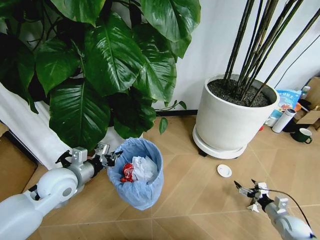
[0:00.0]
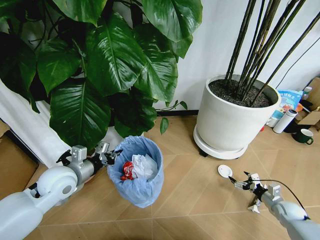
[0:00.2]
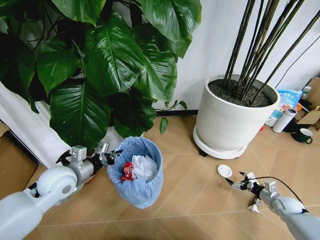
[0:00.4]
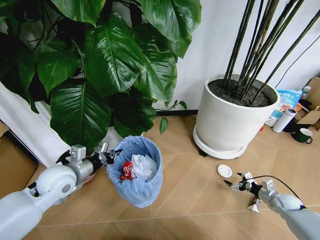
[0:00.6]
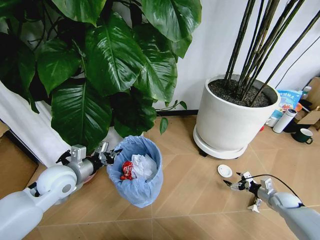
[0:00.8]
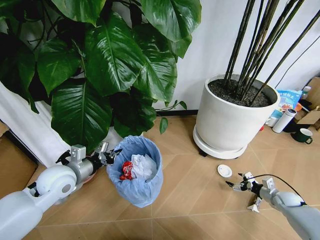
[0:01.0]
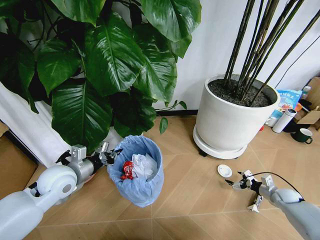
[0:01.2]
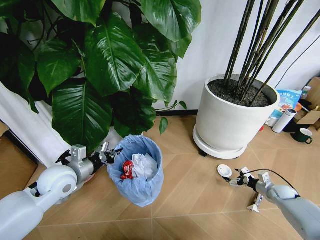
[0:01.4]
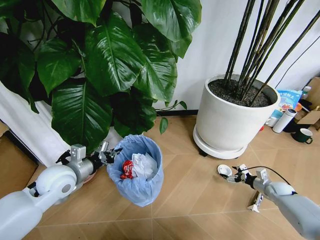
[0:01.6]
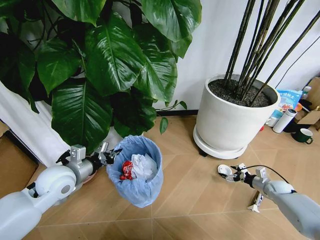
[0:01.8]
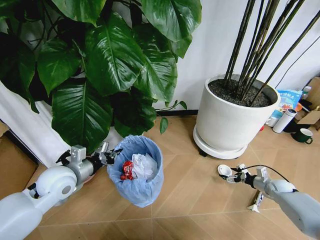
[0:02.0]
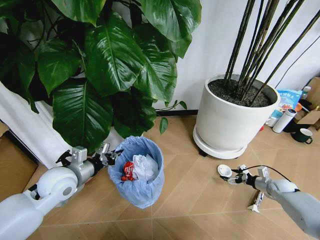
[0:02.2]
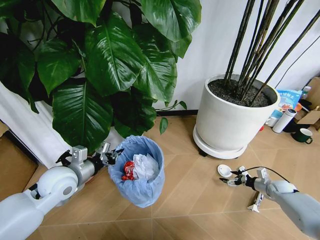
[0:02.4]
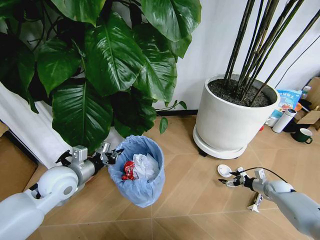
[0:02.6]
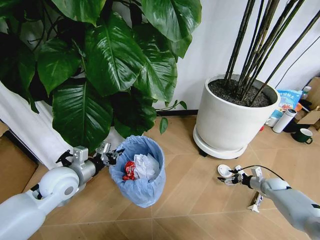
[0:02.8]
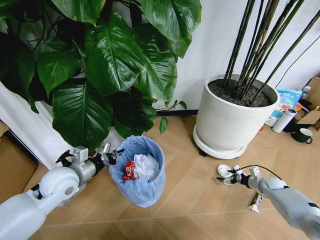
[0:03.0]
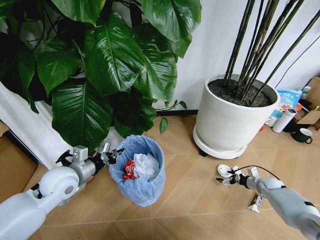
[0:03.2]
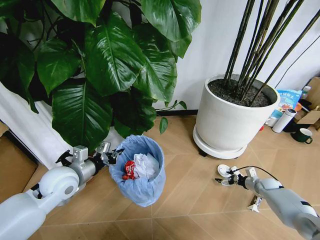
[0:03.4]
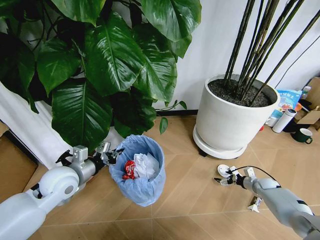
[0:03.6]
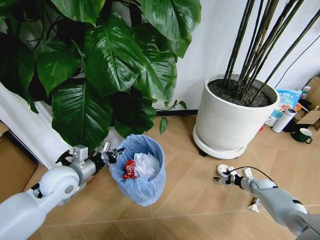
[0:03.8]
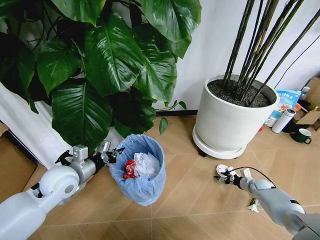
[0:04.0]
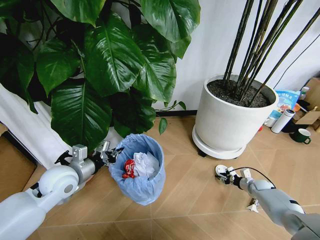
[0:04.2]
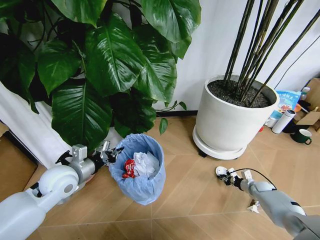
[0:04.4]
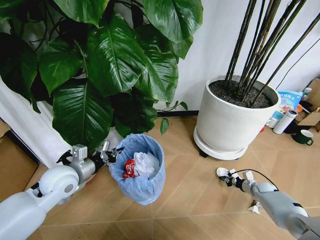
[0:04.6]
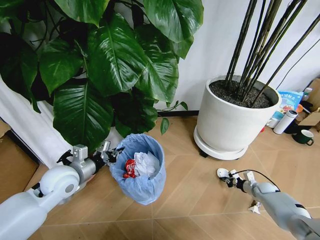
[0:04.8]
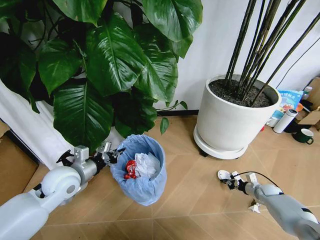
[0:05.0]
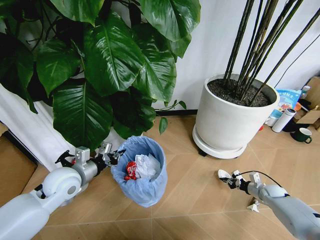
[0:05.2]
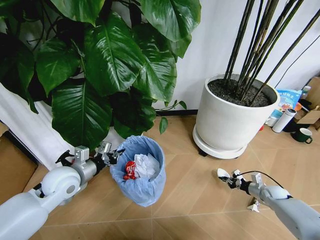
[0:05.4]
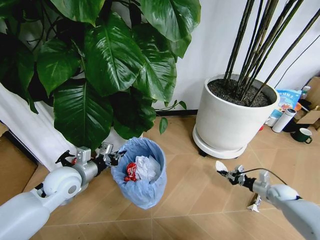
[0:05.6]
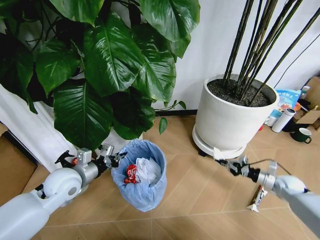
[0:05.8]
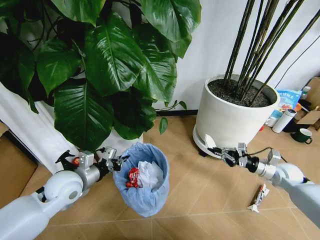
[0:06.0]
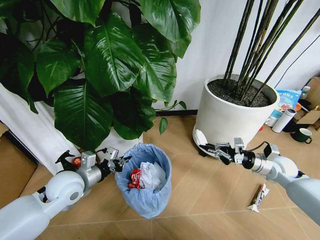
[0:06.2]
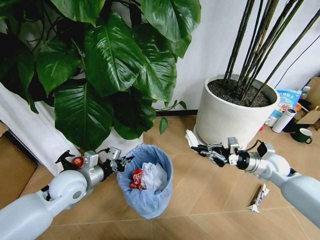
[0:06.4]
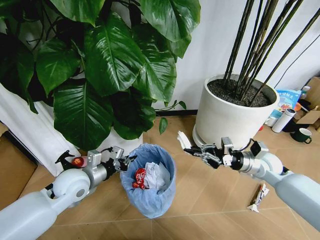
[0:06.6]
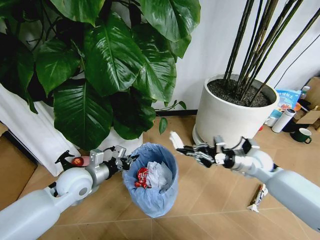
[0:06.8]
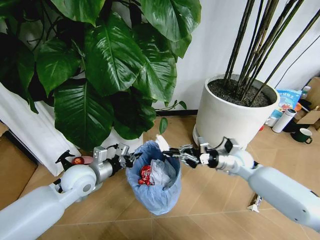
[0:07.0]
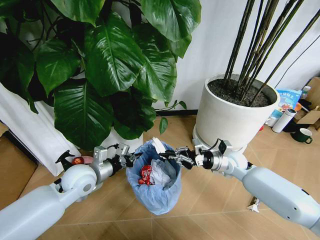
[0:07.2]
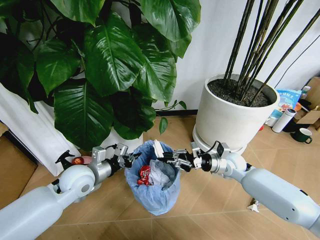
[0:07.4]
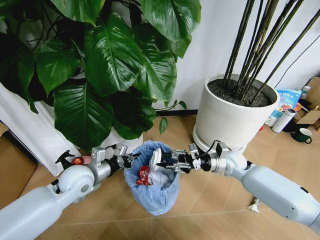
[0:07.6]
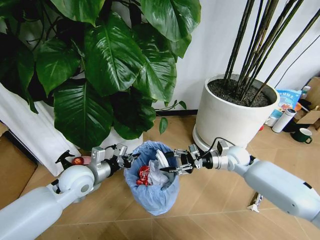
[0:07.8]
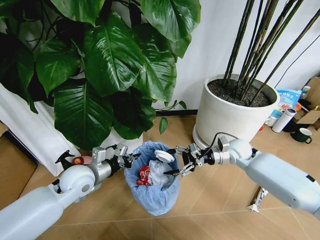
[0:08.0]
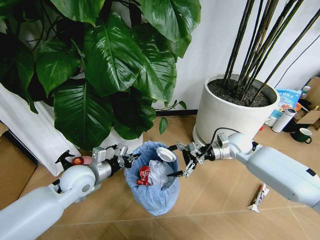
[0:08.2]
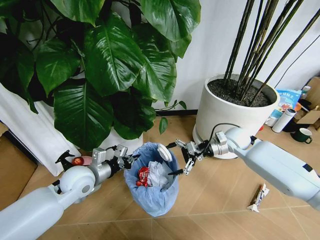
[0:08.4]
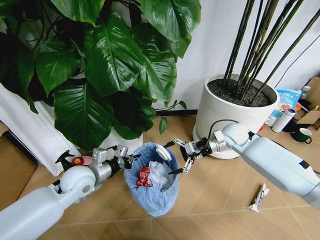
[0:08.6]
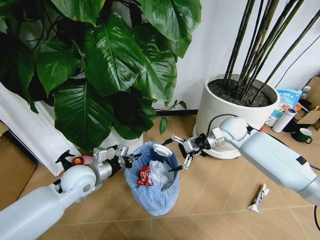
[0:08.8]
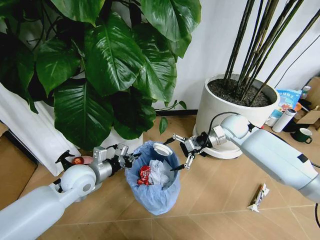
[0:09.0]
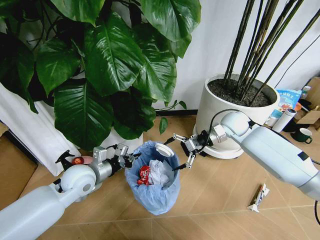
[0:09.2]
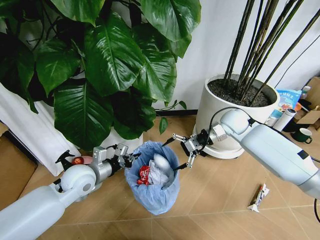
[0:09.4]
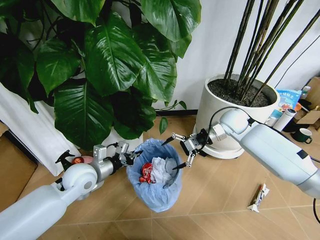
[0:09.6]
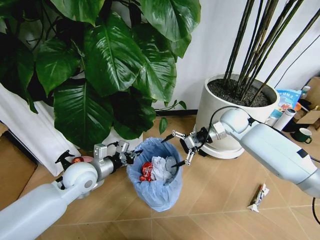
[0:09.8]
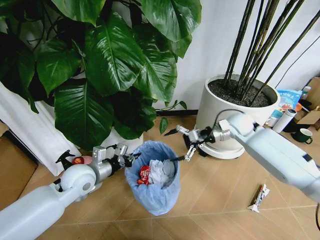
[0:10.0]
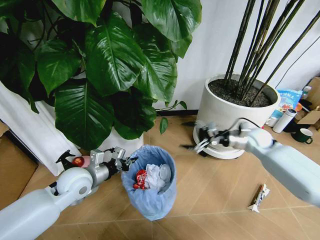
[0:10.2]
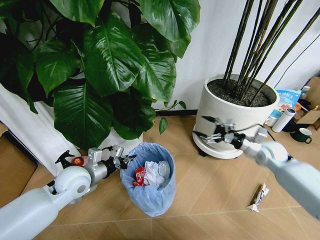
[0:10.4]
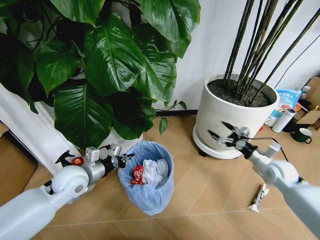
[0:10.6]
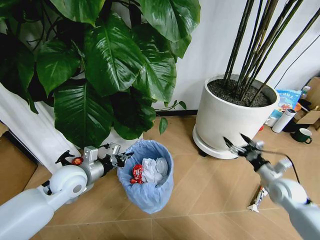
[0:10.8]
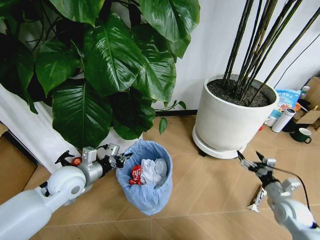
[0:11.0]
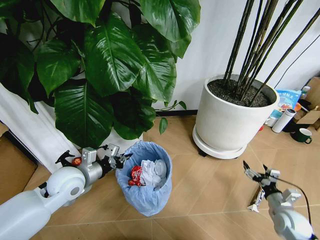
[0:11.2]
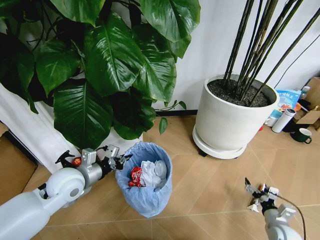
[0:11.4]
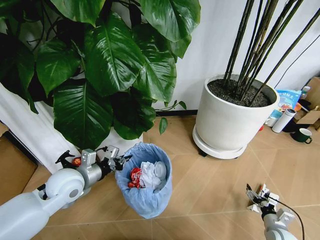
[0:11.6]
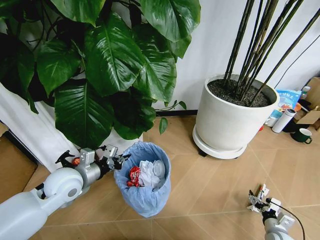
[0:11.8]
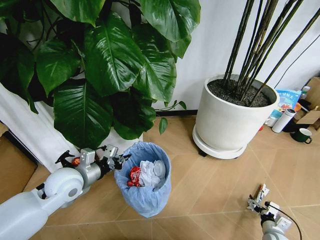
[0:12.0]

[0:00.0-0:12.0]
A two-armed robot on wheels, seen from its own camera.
Task of the whole recording: Pick up the trash bin and place the garbage on the floor into it.
0:00.0 to 0:01.6: The right gripper moves forward, some 15 cm.
0:01.6 to 0:03.0: The grippers move only a little.
0:03.0 to 0:04.4: The right gripper ends up about 5 cm from where it was, and closes up.
0:04.4 to 0:06.0: The right gripper travels upward by some 20 cm.
0:06.0 to 0:07.6: The right gripper shifts roughly 20 cm to the left.
0:07.6 to 0:09.0: The right gripper shifts roughly 15 cm upward and forward, and opens its fingers.
0:09.0 to 0:10.4: The right gripper travels to the right, backward and downward by roughly 20 cm.
0:10.4 to 0:12.0: The right gripper is displaced downward and backward by approximately 35 cm.

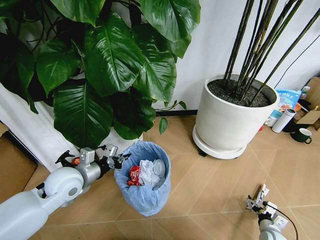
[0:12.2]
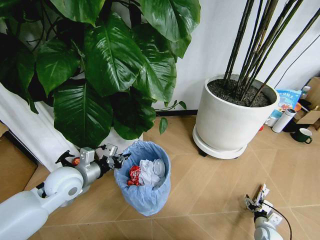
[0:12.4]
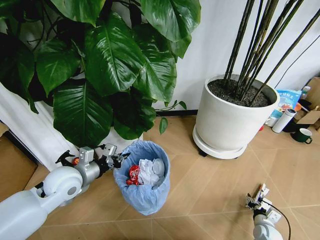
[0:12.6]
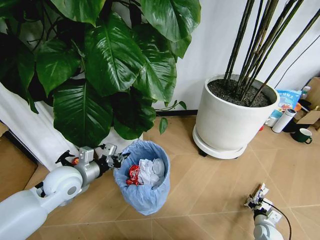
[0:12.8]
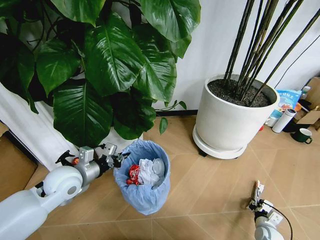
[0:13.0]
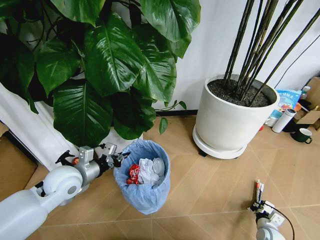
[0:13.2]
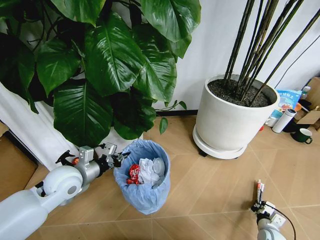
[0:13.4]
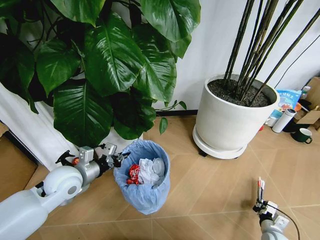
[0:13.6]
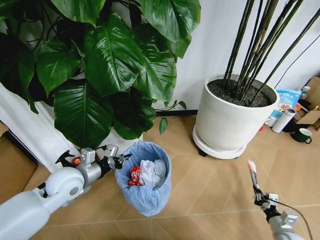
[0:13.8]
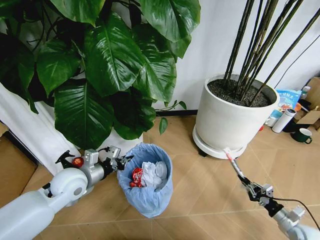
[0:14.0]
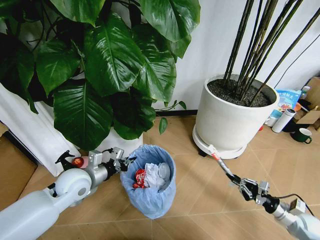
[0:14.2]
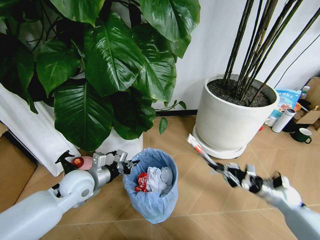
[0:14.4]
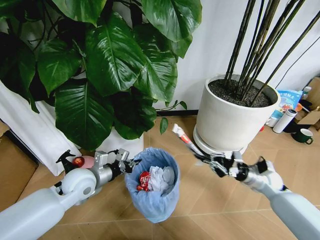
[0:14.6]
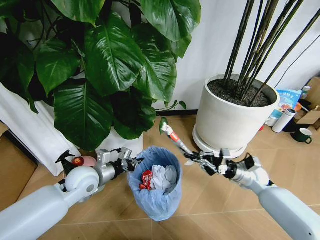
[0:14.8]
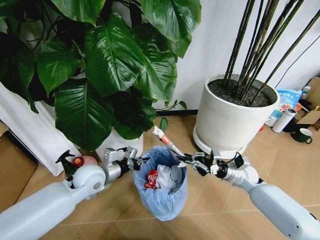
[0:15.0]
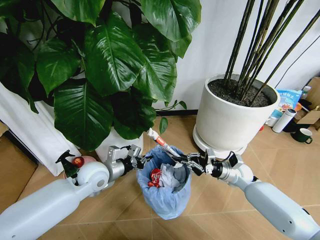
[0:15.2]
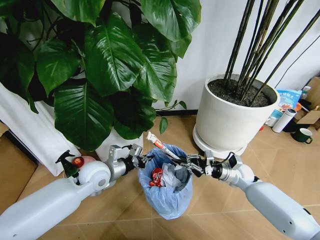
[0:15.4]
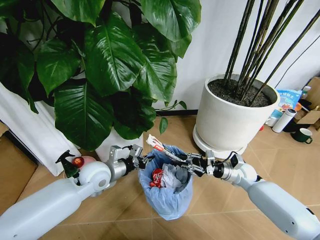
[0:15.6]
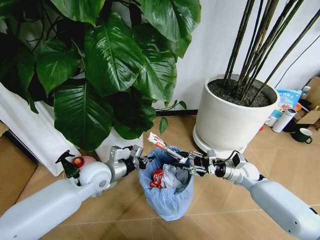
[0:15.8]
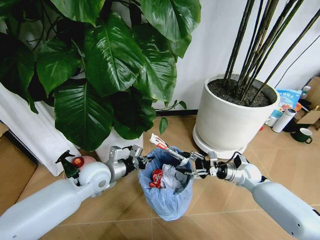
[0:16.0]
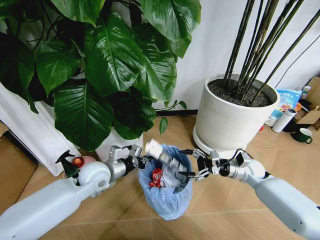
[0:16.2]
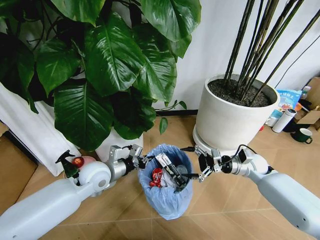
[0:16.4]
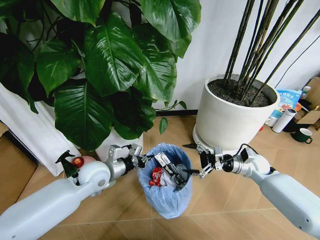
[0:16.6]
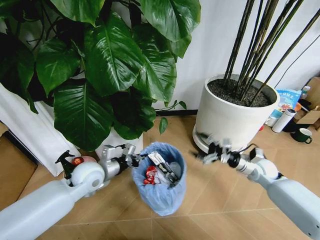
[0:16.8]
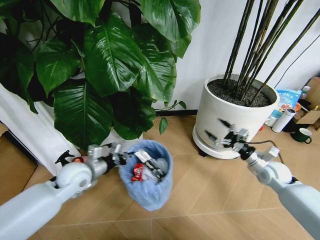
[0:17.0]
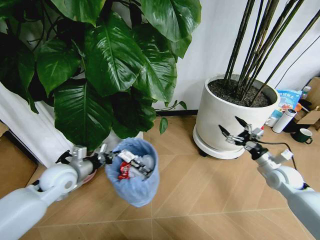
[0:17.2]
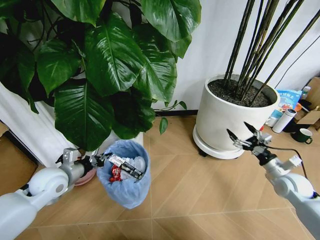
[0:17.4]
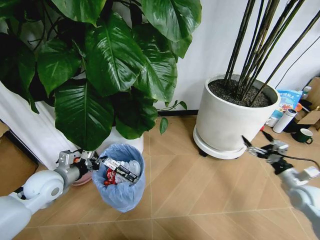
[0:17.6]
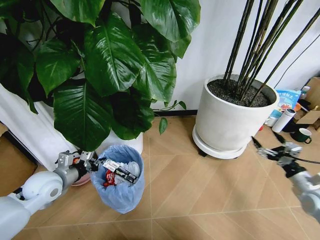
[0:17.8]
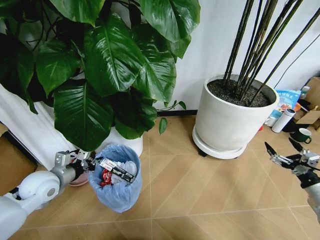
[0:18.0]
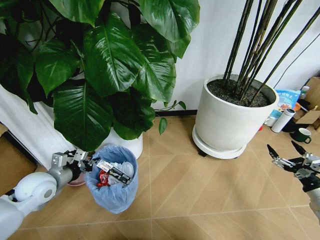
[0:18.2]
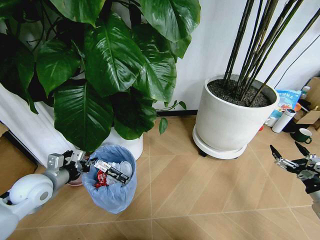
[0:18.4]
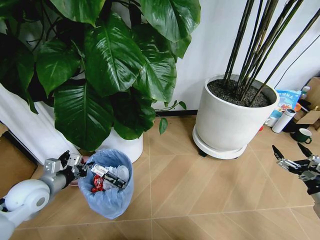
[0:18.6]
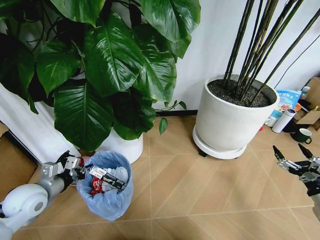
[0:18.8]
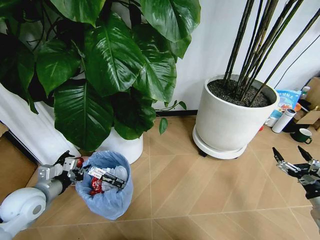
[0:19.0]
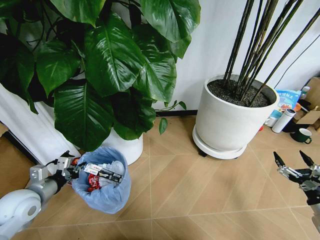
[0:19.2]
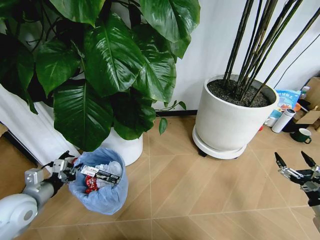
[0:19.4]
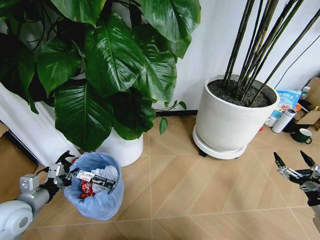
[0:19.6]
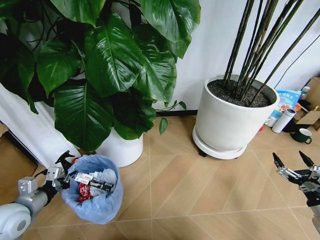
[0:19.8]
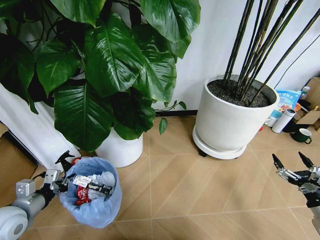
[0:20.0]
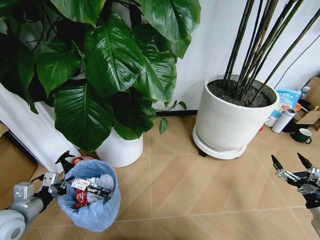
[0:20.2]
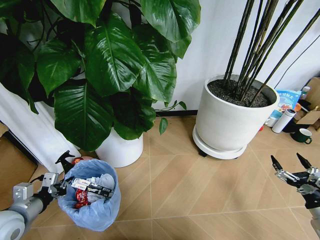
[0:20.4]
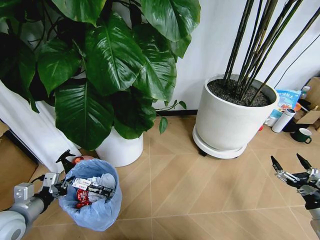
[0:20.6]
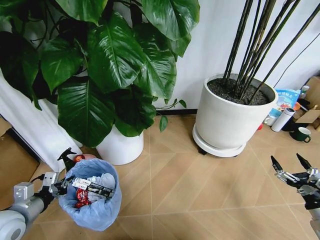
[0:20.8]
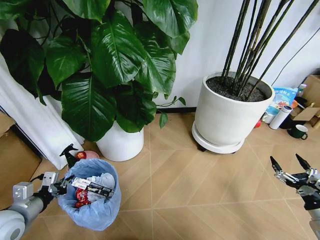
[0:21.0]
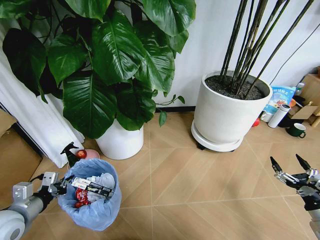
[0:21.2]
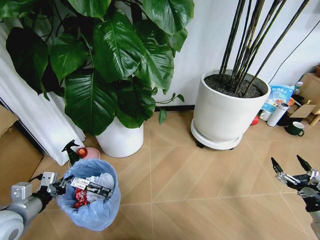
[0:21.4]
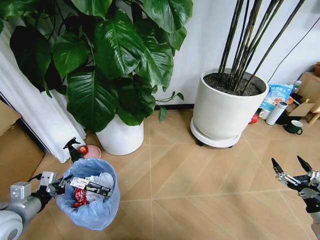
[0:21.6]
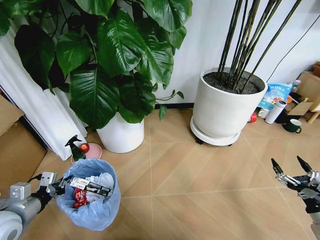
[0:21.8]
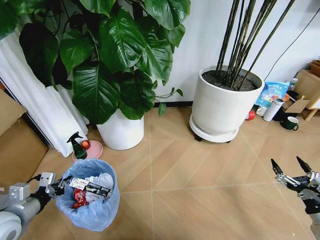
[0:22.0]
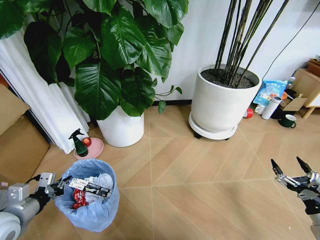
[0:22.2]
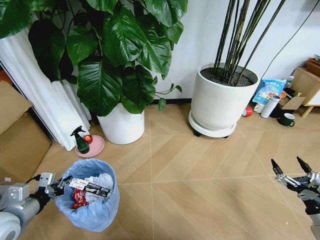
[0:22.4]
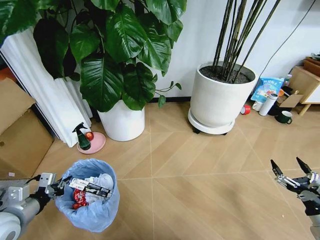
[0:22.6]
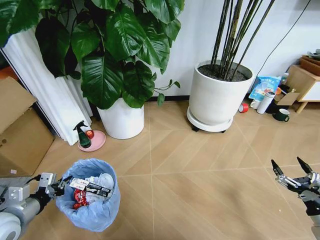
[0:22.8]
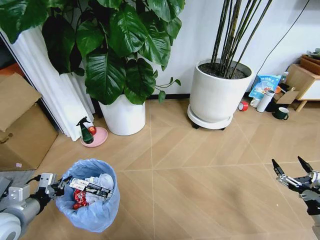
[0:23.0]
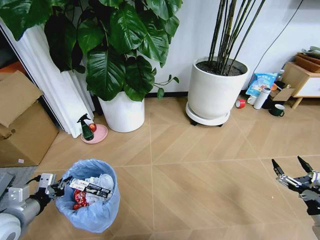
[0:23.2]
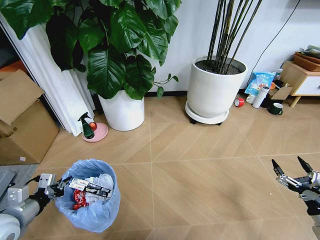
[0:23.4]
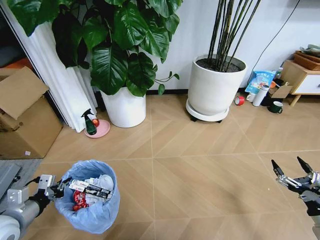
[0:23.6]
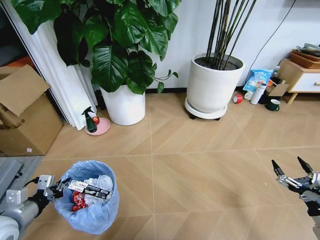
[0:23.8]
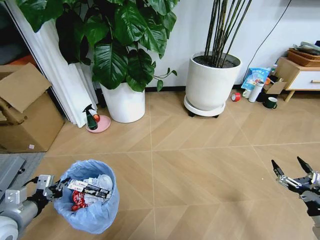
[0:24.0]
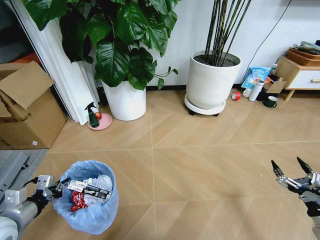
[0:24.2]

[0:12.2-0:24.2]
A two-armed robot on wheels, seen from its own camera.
Task of the whole recording: Pick up the trash bin and place the garbage on the floor into it.
0:12.2 to 0:13.8: The right gripper shifts by about 5 cm, and closes.
0:13.8 to 0:15.2: The left gripper shifts about 5 cm to the right, while the right gripper goes about 30 cm forward, to the left and upward.
0:15.2 to 0:16.6: The right gripper ends up roughly 5 cm from where it was, and opens up.
0:16.6 to 0:18.2: The left gripper is displaced to the left by some 15 cm. The right gripper is displaced backward and to the right by about 25 cm.
0:18.2 to 0:19.8: The right gripper shifts by roughly 5 cm. Meanwhile the left gripper goes roughly 10 cm backward.
